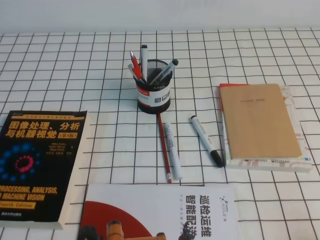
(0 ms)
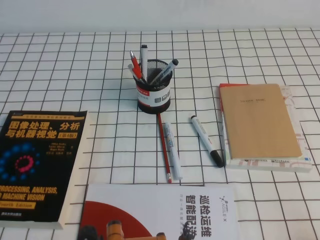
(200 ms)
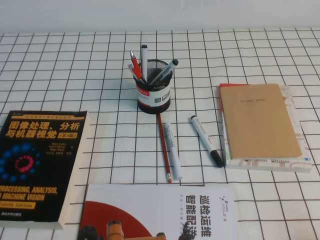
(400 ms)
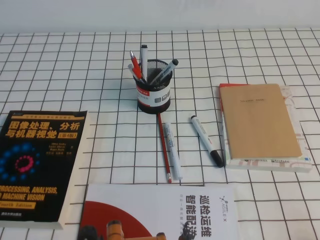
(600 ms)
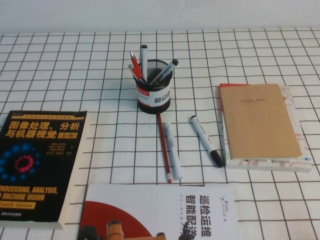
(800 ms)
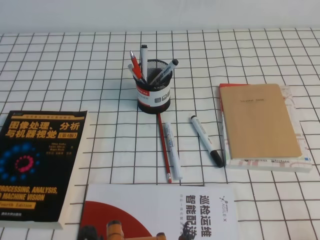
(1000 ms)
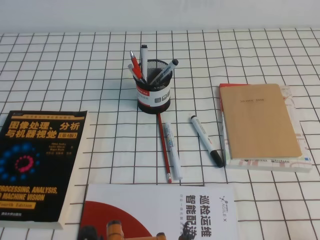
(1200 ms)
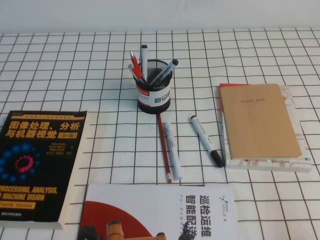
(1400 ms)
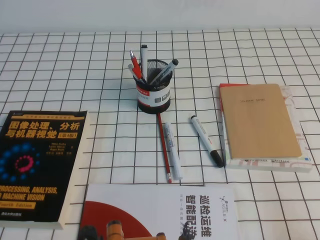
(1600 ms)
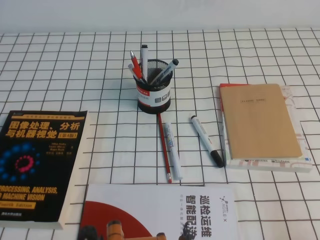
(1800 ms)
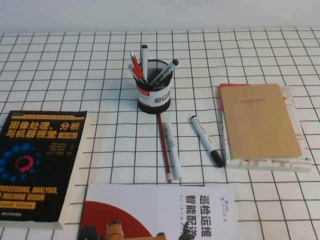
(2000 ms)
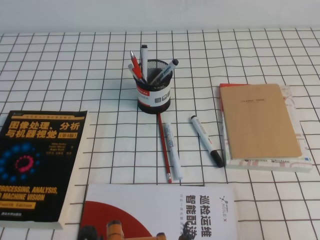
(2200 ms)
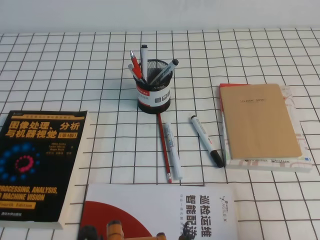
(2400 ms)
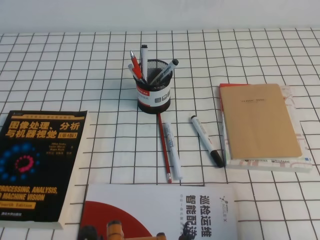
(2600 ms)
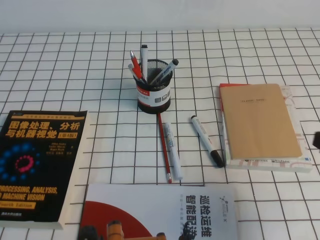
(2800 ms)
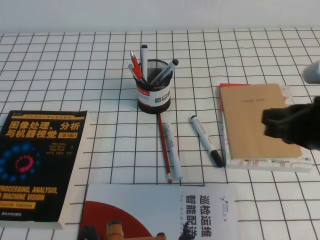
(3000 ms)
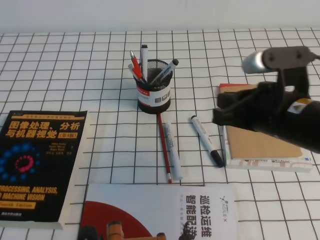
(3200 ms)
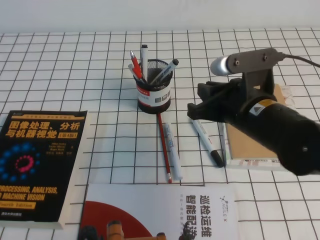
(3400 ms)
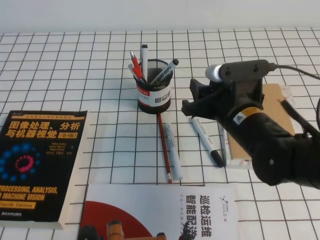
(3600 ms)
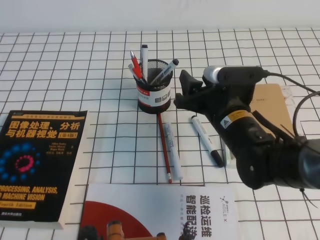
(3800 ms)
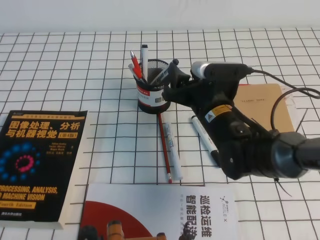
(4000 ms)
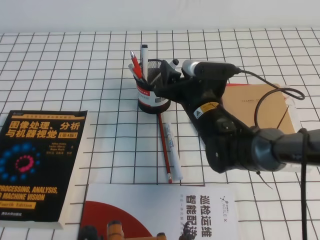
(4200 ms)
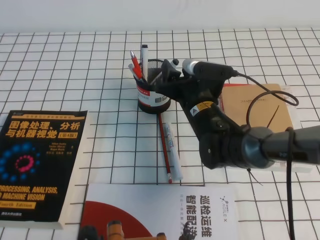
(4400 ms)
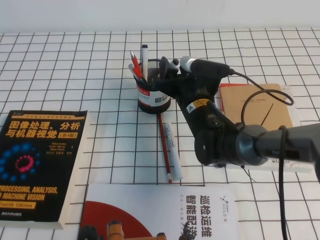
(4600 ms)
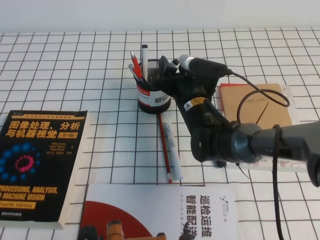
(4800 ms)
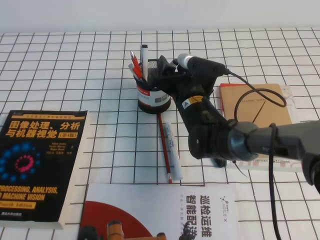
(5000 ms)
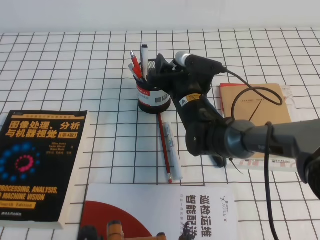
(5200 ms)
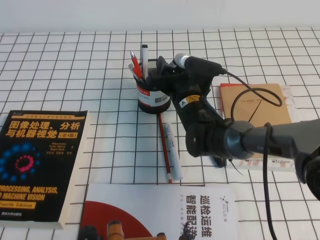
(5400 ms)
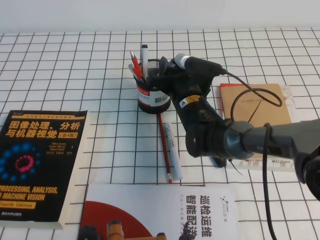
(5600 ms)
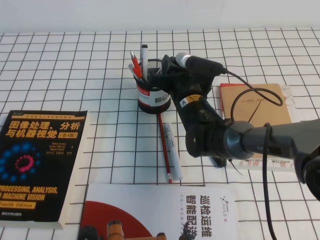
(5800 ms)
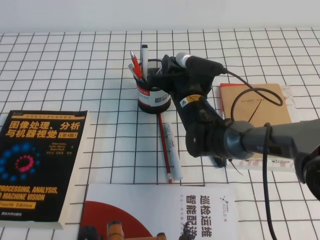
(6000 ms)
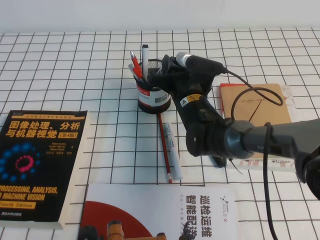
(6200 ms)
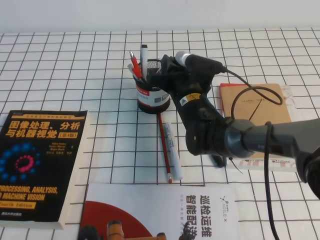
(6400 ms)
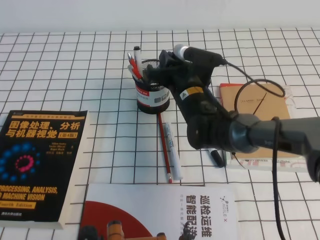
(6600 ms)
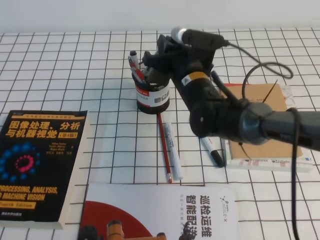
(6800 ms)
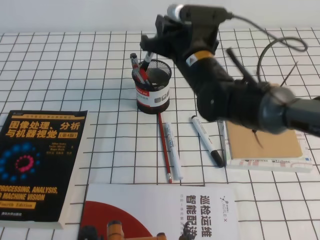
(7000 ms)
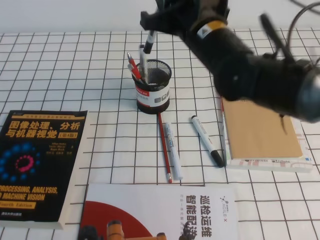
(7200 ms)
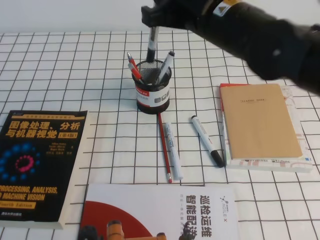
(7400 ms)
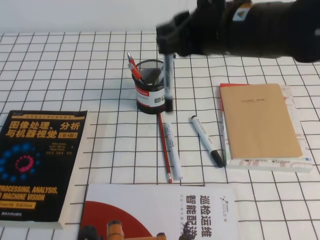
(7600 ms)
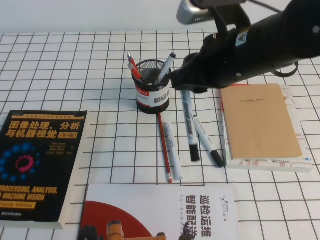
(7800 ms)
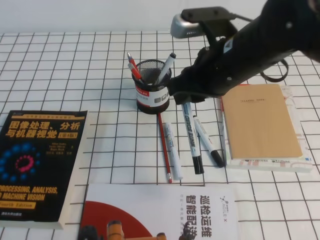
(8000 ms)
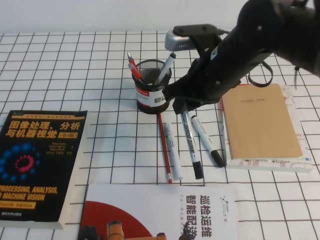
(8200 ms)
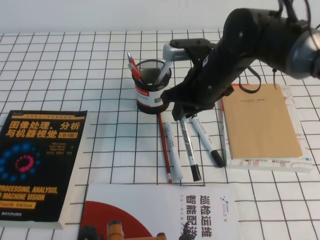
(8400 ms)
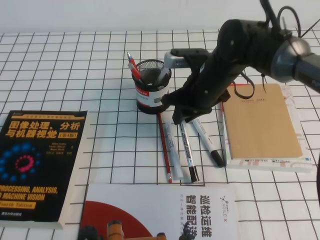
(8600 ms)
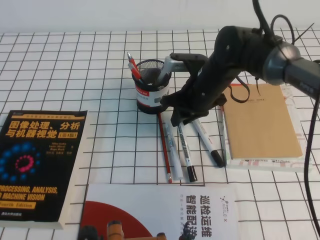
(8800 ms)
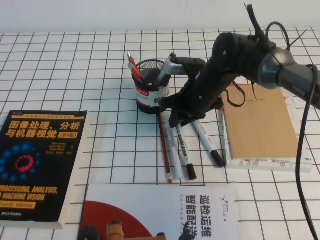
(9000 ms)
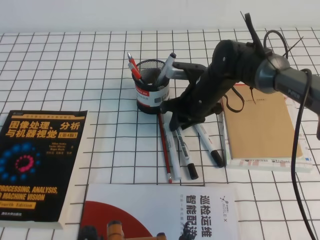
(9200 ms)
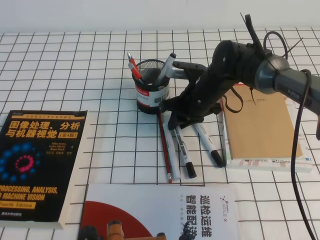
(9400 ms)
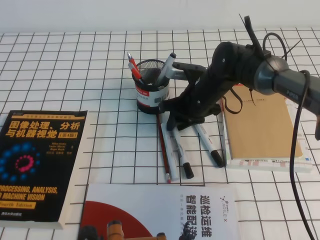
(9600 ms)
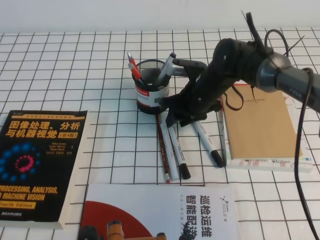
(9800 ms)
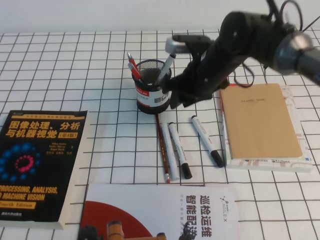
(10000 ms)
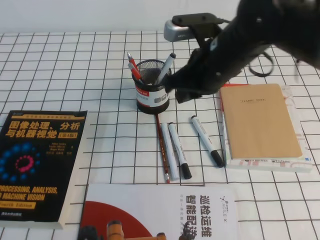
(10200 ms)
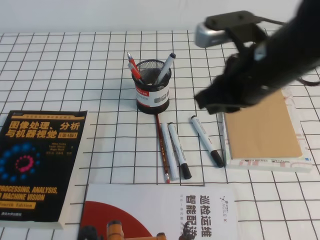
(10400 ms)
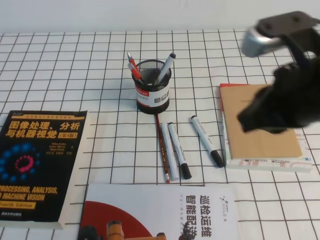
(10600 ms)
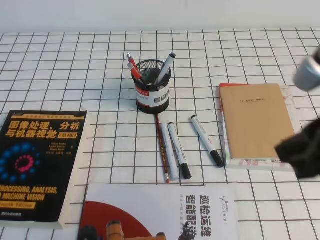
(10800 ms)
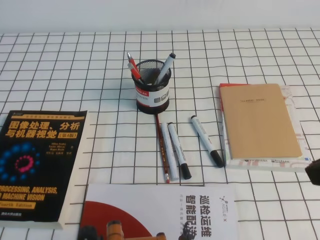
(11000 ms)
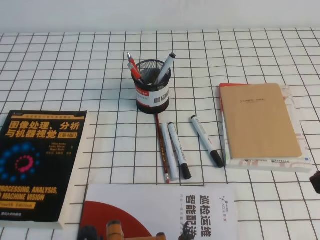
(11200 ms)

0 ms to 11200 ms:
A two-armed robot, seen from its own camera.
1600 ms to 3200 ms: The right gripper is displaced forward, to the left and upward by some 25 cm.
3200 ms to 4800 ms: The right gripper goes some 25 cm forward, to the left and downward, and opens.
4800 ms to 6400 ms: The right gripper closes its fingers.
6400 ms to 8000 ms: The right gripper shifts some 20 cm upward, backward and to the right.
8000 ms to 9600 ms: The right gripper goes some 20 cm downward and forward.
9600 ms to 11200 ms: The right gripper is displaced backward, upward and to the right by some 40 cm, and closes its fingers.

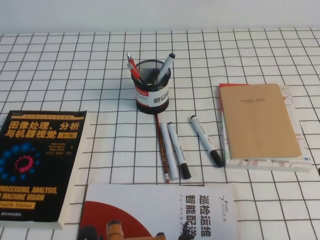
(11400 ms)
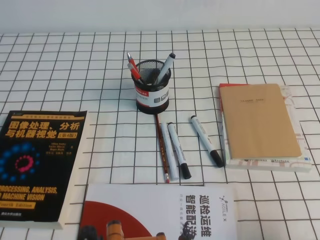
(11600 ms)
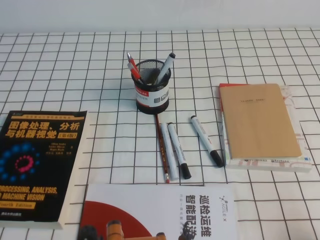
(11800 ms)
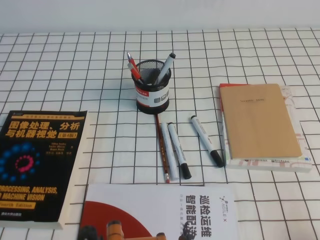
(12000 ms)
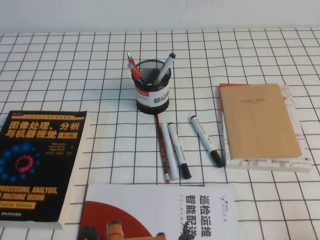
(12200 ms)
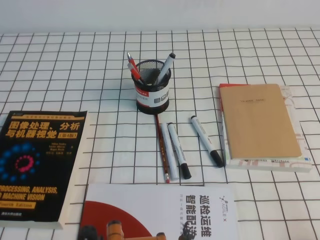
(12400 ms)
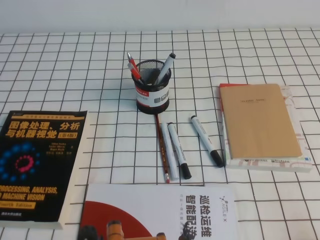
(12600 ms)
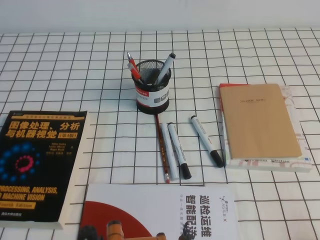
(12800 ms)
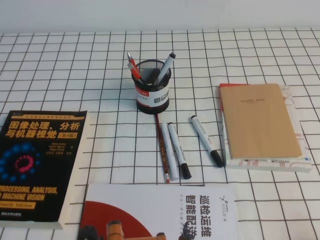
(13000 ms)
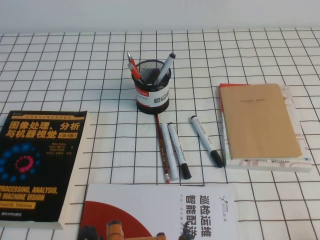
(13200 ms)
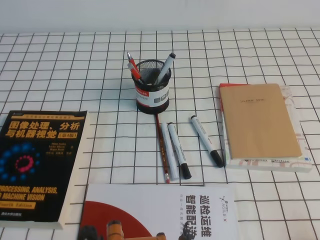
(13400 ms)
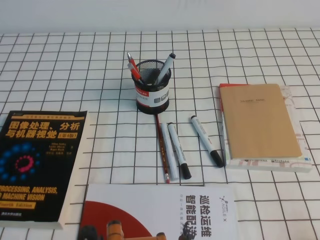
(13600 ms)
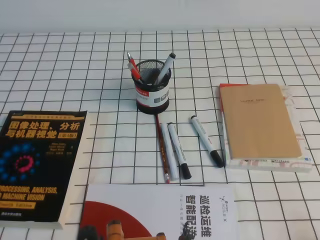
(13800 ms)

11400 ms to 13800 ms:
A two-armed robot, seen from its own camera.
Step, 11400 ms to 13800 ms: Pick up the pen from the pen holder.
11400 ms to 12600 ms: The right gripper moves downward, backward and to the right, roughly 15 cm.
12600 ms to 13800 ms: The two grippers keep their place.
